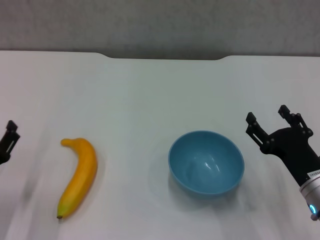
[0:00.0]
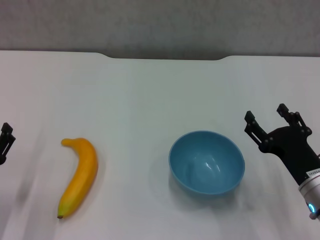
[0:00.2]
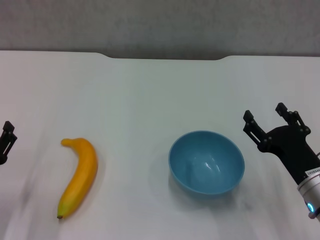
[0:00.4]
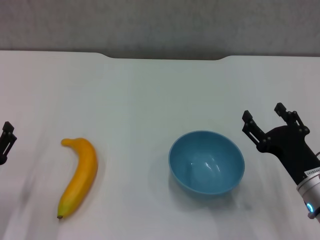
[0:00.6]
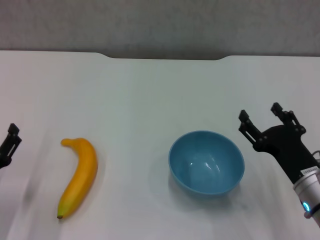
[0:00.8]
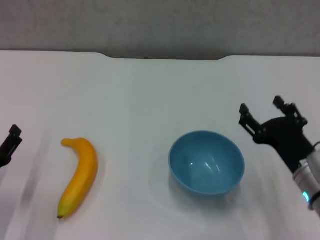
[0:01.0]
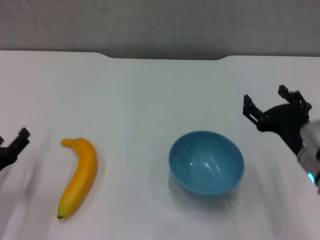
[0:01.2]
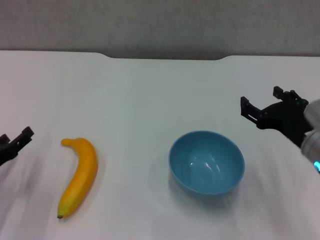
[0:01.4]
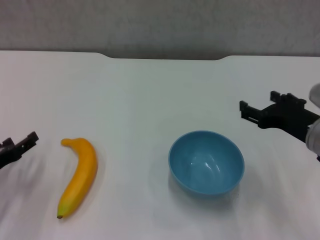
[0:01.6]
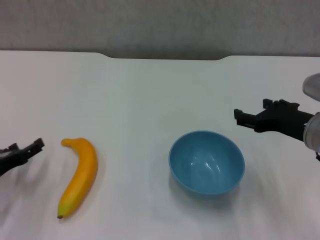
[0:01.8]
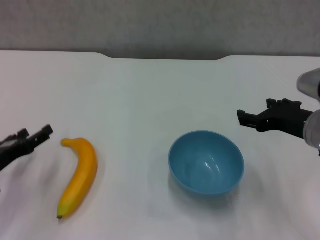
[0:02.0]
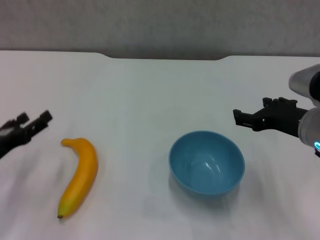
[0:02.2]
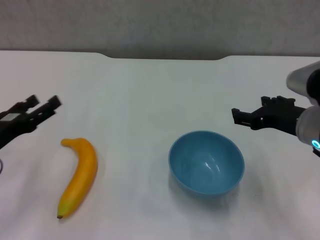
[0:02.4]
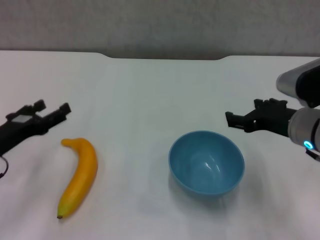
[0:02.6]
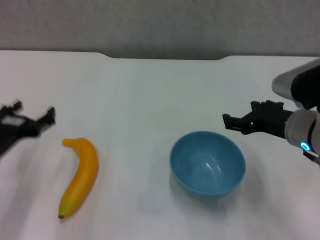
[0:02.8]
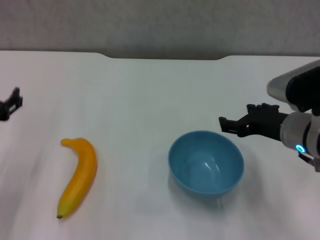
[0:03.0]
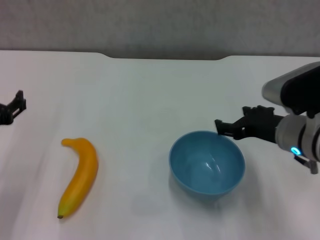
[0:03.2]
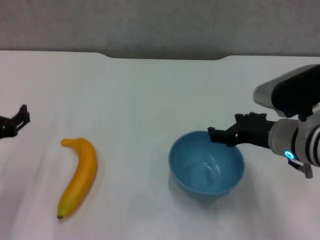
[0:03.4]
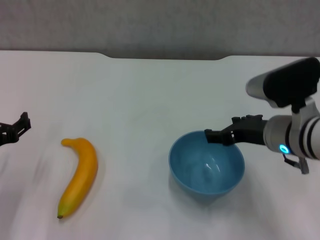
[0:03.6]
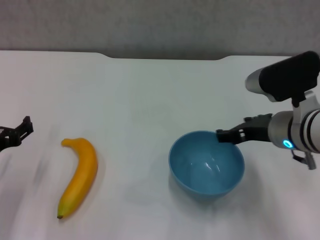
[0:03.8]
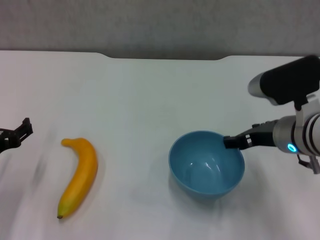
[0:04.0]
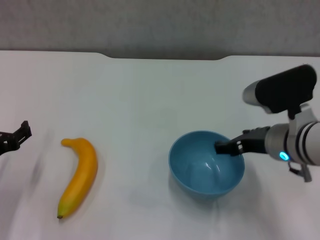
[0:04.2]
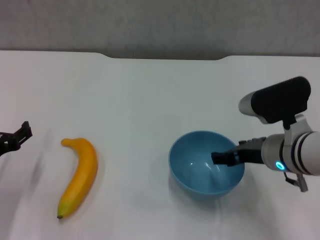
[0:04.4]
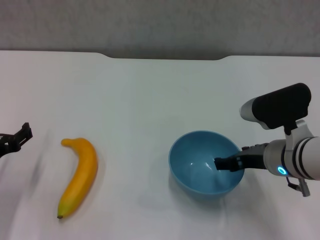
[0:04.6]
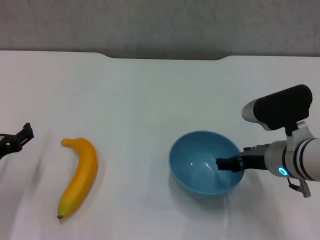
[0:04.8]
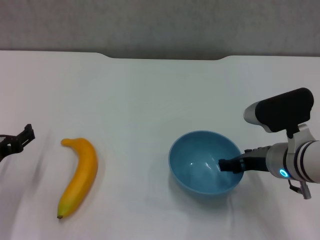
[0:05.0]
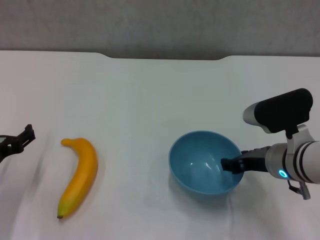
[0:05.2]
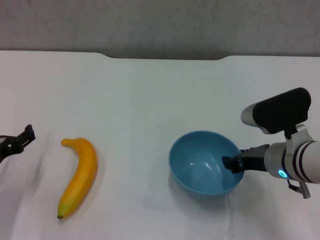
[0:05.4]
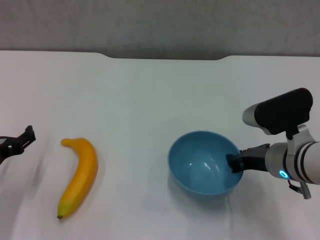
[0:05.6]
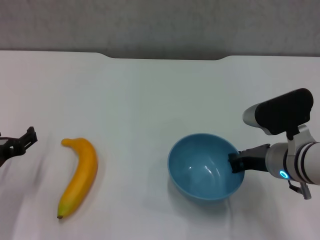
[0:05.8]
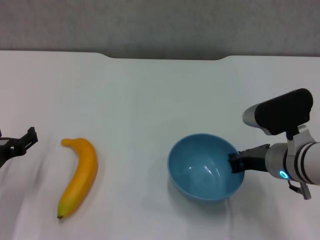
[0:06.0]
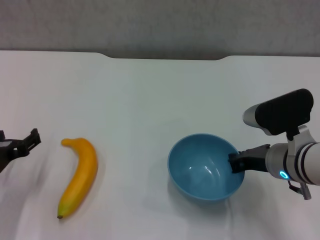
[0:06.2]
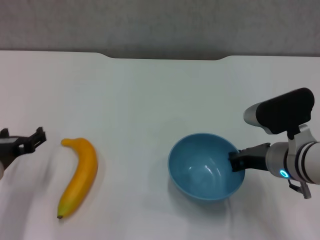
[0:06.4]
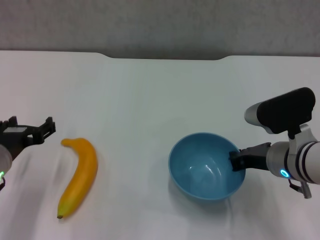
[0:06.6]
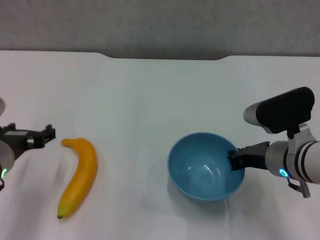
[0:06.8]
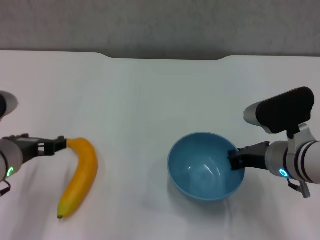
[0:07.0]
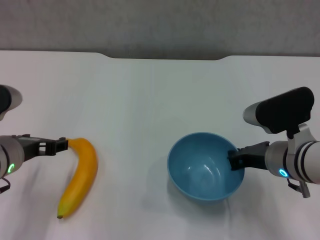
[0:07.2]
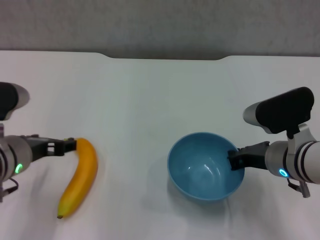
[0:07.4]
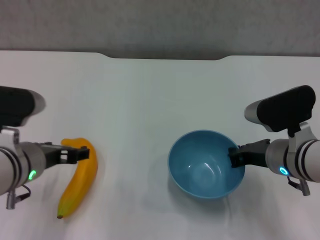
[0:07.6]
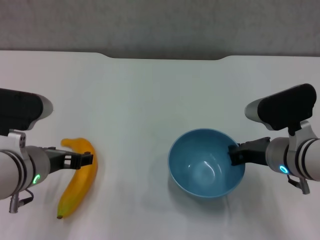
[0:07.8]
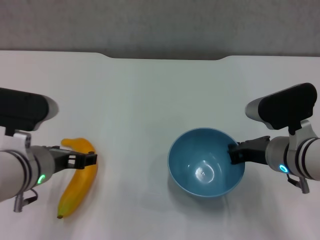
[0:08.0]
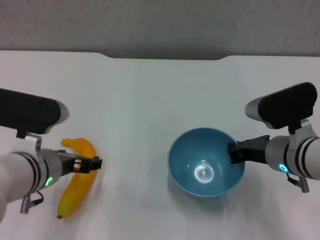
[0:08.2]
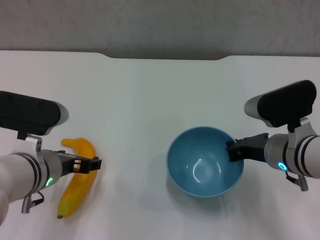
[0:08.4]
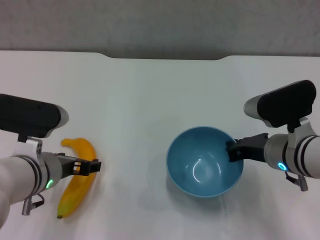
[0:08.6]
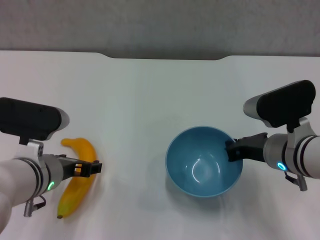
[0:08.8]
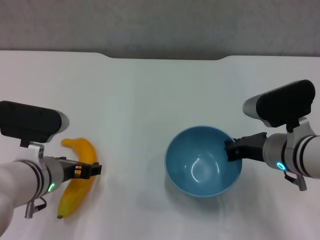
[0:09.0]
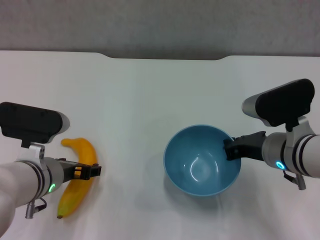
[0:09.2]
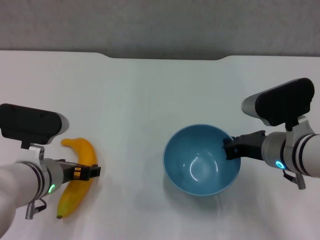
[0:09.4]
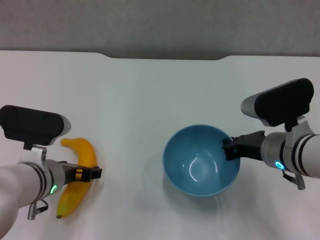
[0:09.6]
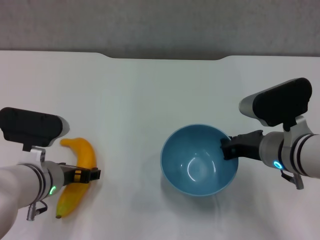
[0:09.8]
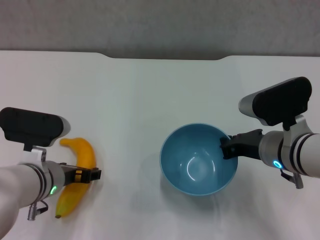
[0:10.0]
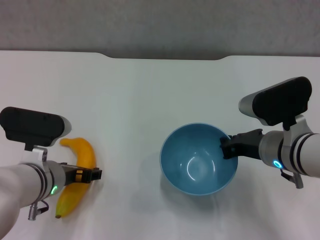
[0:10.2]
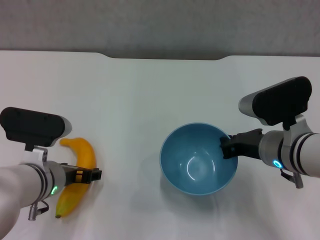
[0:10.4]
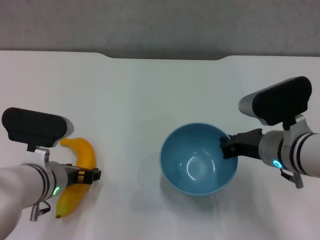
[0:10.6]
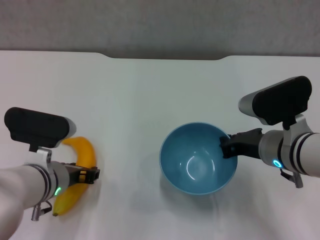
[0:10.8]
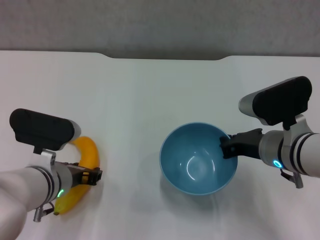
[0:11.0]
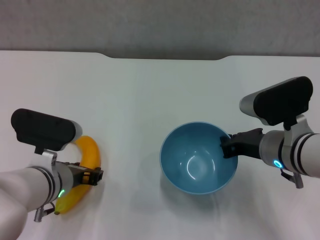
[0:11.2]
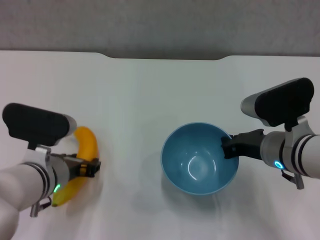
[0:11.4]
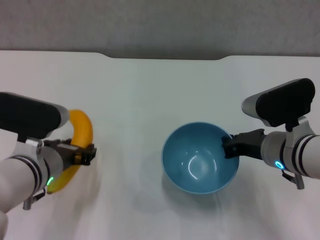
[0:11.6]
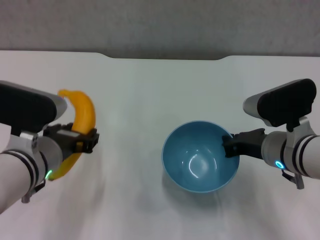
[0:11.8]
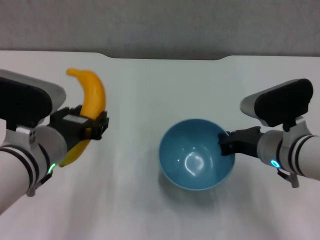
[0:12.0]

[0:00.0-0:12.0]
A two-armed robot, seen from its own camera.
Step, 0:00.0 to 0:05.8: Grasp the blue bowl with right gripper.
Step, 0:06.8 to 0:10.8: Grasp the banana with left gripper.
0:00.0 to 0:01.6: The right gripper shifts about 10 cm upward and forward; the left gripper moves some 5 cm.
0:01.6 to 0:03.0: The left gripper goes approximately 15 cm upward and to the right.
0:03.0 to 0:04.4: The left gripper moves downward, some 5 cm.
0:04.4 to 0:06.0: The right gripper closes its fingers.
0:06.0 to 0:07.6: The left gripper shifts about 10 cm to the right and upward.
0:07.6 to 0:10.4: The grippers make only small movements.
0:10.4 to 0:12.0: The left gripper shifts approximately 10 cm upward, and closes.

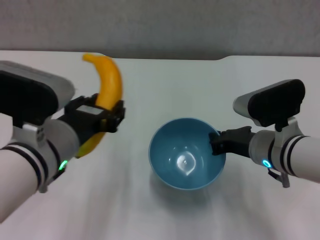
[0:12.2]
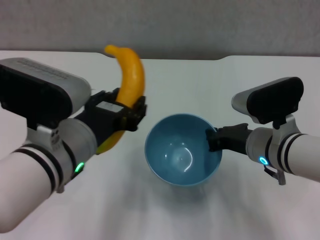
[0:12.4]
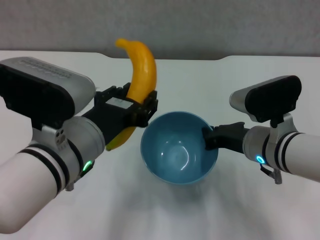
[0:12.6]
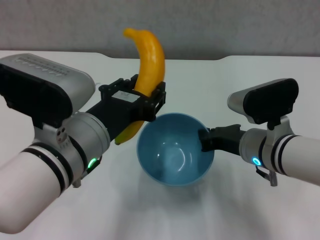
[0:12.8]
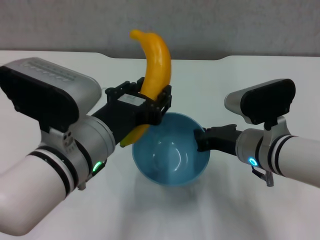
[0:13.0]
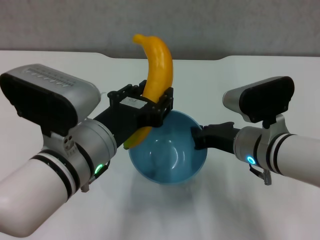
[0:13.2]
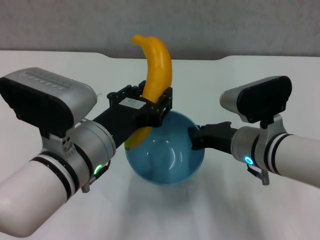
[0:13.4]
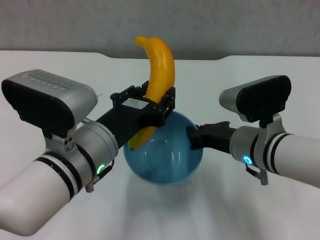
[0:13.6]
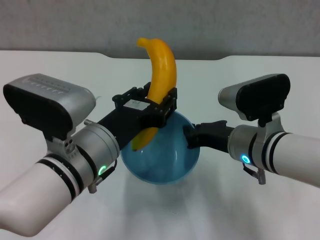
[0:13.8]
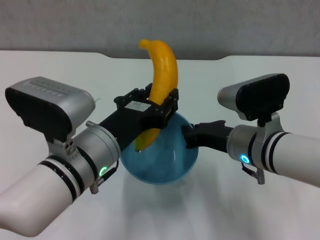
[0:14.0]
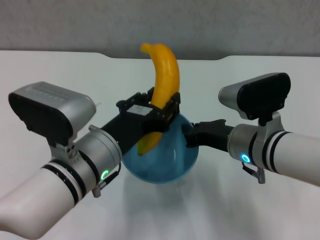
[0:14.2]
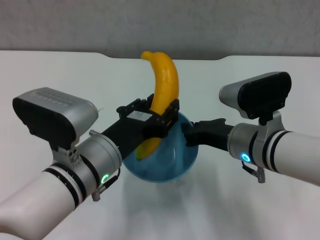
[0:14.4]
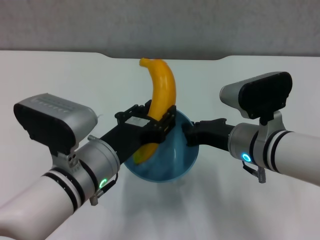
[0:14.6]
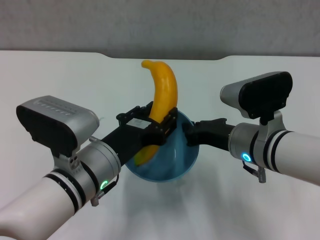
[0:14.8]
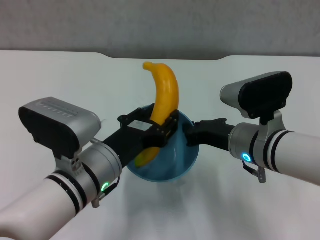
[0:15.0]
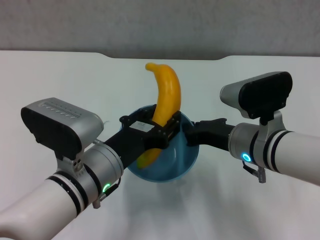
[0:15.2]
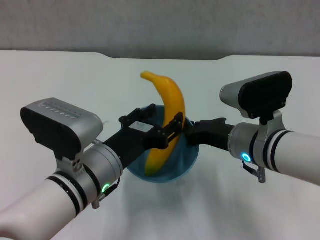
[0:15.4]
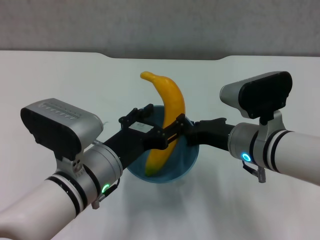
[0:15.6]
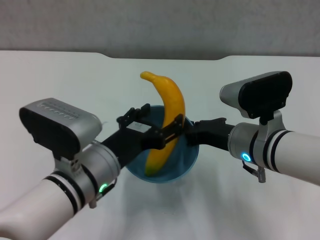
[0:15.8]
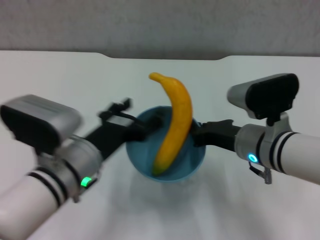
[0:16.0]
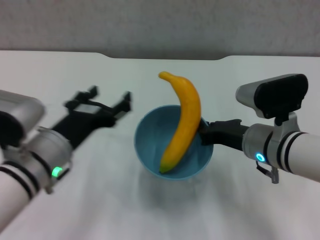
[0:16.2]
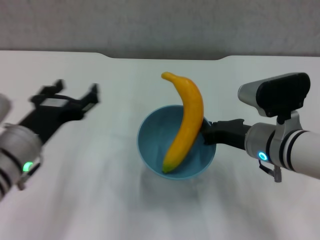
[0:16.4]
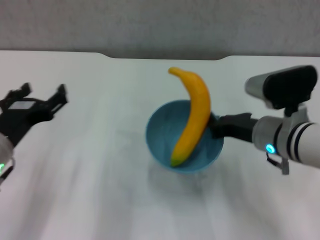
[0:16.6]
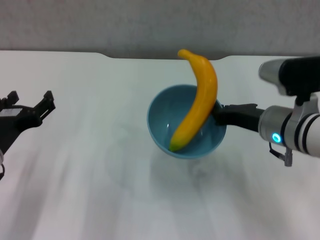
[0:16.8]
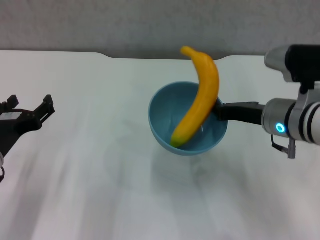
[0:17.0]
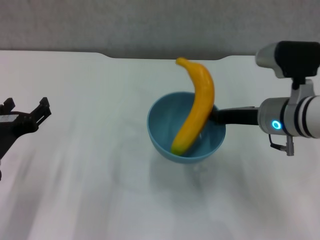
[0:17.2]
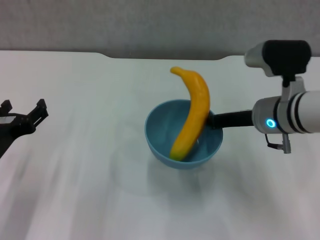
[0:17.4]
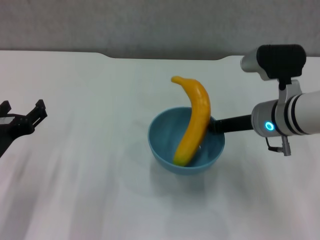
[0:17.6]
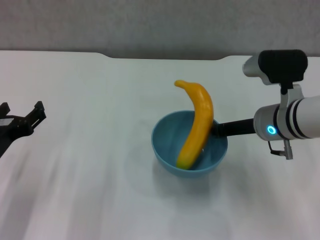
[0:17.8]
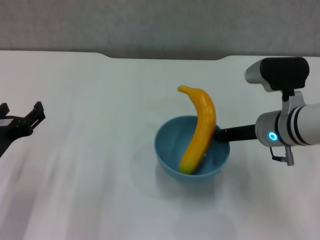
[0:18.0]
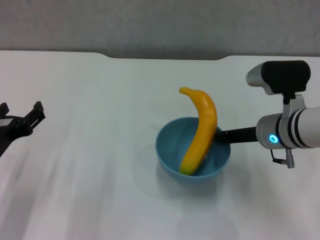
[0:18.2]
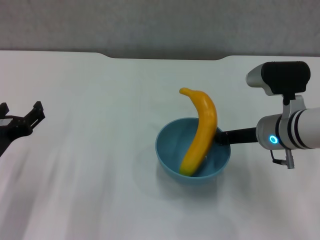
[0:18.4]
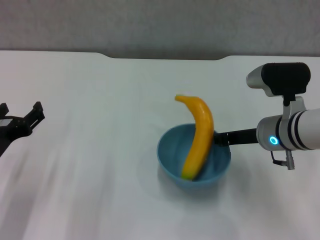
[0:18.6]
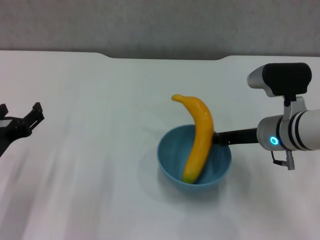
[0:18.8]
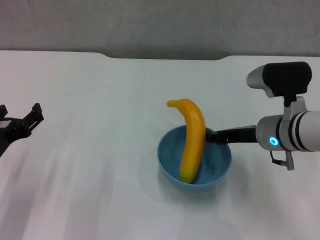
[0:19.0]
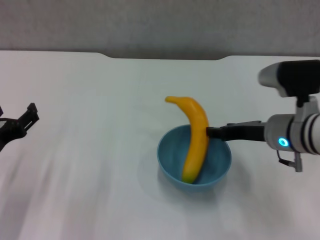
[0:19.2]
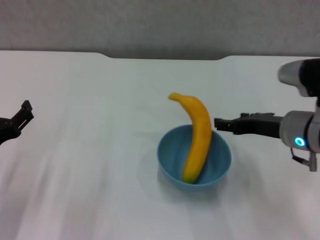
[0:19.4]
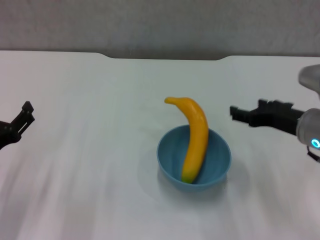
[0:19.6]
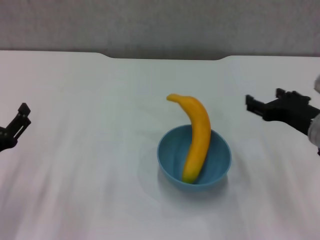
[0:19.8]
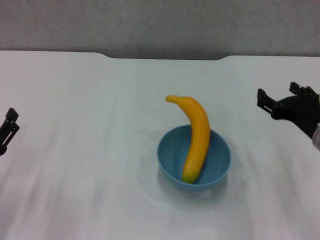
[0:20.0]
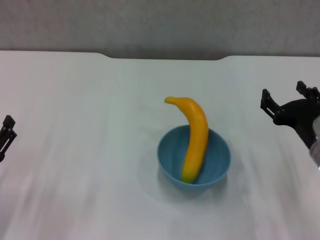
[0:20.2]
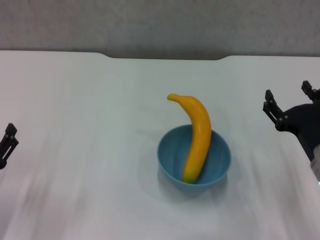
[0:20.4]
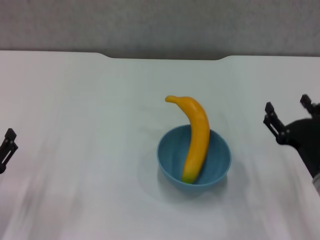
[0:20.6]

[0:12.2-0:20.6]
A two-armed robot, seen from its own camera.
Step, 0:12.2 to 0:15.8: Place the banana in the blue bowl with left gripper.
Step, 0:16.0 to 0:19.2: Place the bowl on the table with right gripper.
0:15.0 to 0:16.4: The left gripper moves to the left, approximately 10 cm, and opens its fingers.
0:16.4 to 0:17.8: The left gripper travels to the left by approximately 5 cm, while the right gripper ends up about 5 cm from where it was.
0:17.8 to 0:19.2: The right gripper opens its fingers.
0:19.2 to 0:20.6: The right gripper goes some 15 cm backward, downward and to the right, and opens up. The left gripper goes roughly 5 cm downward.

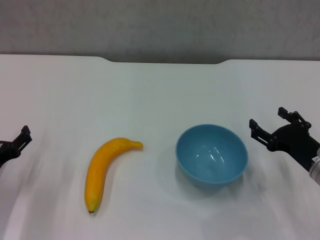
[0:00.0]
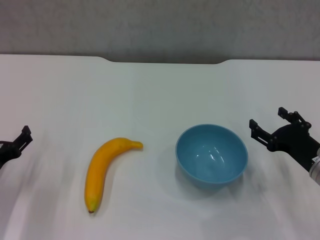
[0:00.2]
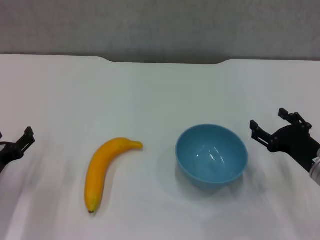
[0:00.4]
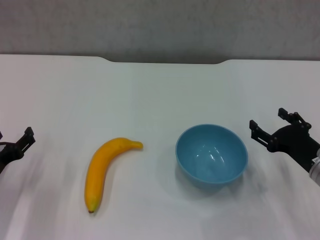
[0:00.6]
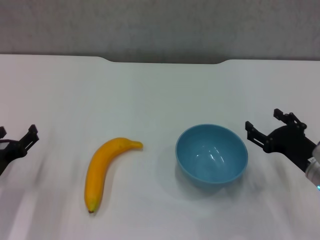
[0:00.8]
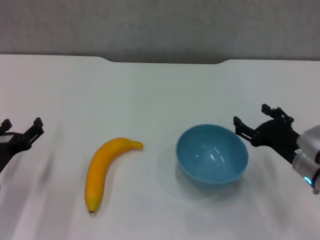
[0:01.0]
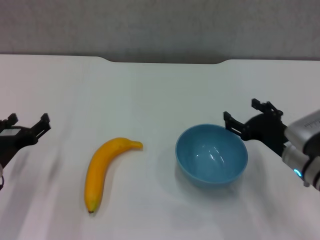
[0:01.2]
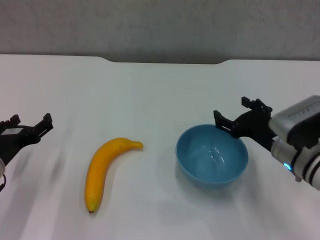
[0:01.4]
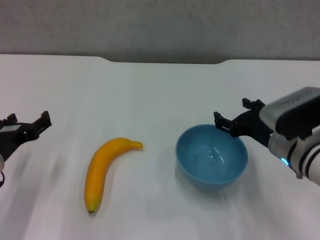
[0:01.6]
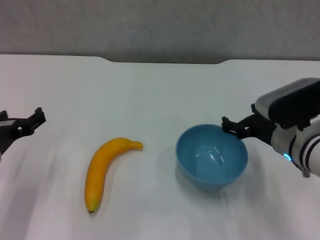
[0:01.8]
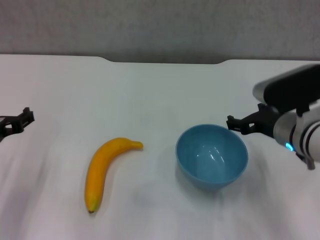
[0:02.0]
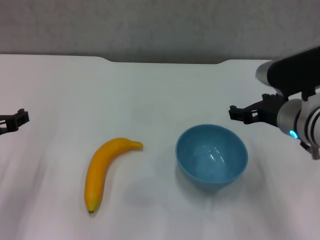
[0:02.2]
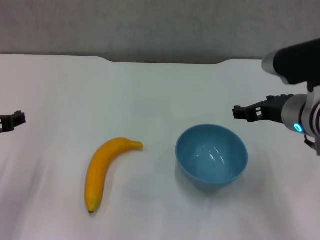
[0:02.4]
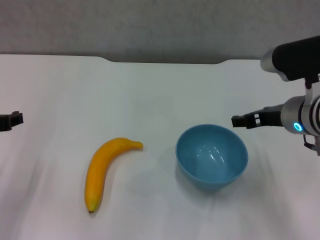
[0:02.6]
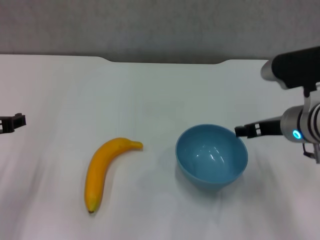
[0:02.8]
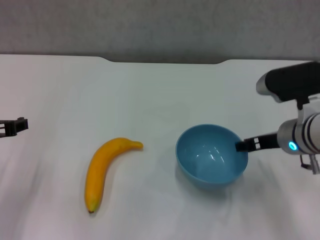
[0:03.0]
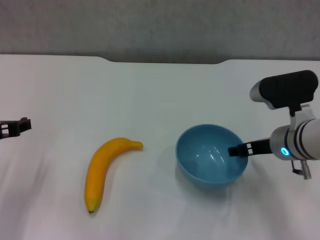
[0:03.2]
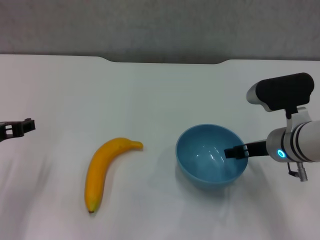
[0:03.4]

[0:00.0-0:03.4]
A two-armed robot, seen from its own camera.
0:00.0 to 0:01.6: The left gripper goes about 5 cm upward; the right gripper heads to the left, covering approximately 5 cm.
0:01.6 to 0:03.4: The right gripper travels upward and back again, about 10 cm each way. The left gripper shifts roughly 5 cm upward.
